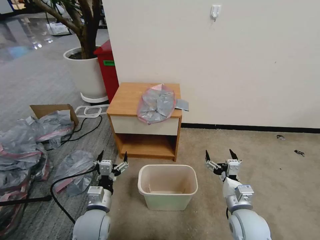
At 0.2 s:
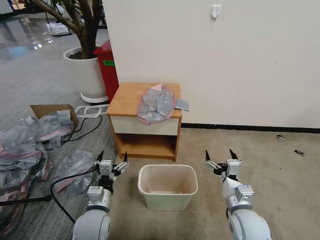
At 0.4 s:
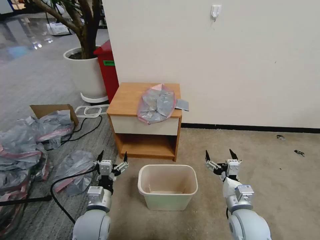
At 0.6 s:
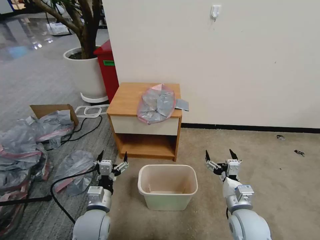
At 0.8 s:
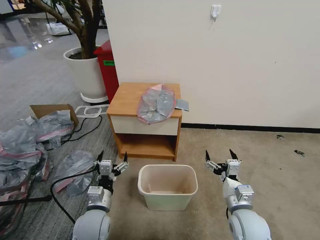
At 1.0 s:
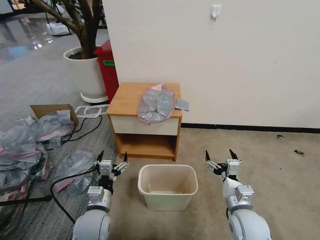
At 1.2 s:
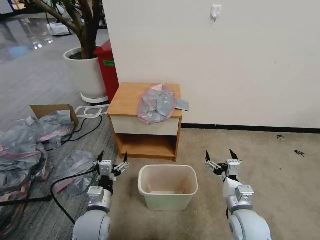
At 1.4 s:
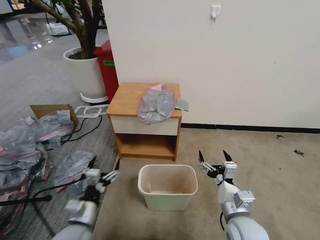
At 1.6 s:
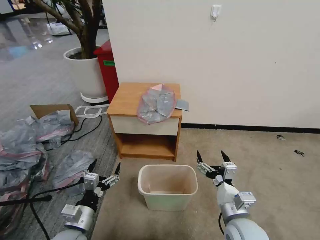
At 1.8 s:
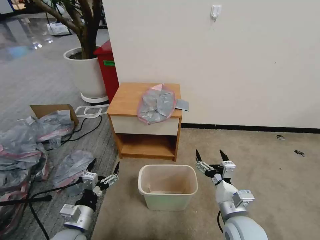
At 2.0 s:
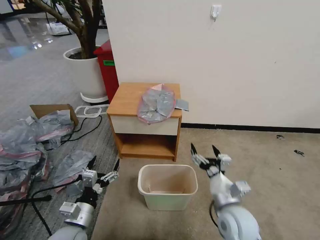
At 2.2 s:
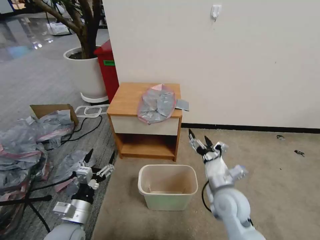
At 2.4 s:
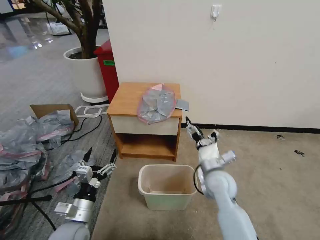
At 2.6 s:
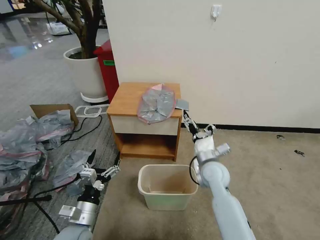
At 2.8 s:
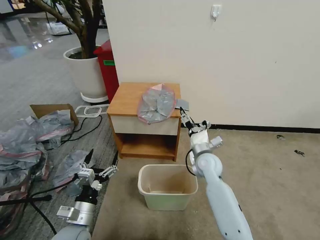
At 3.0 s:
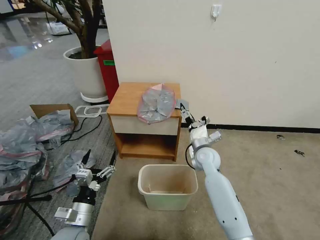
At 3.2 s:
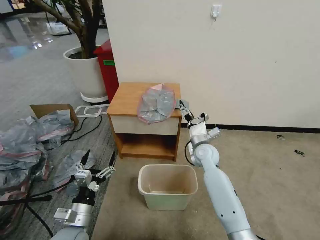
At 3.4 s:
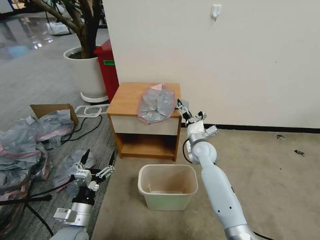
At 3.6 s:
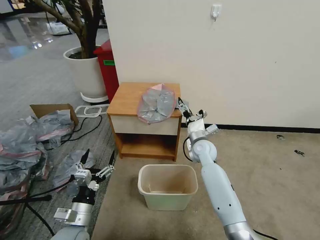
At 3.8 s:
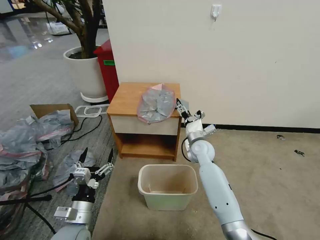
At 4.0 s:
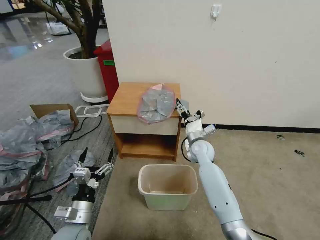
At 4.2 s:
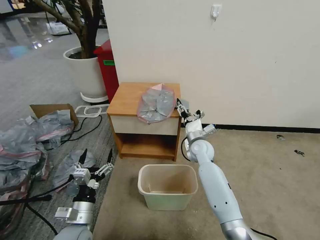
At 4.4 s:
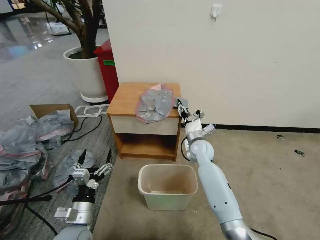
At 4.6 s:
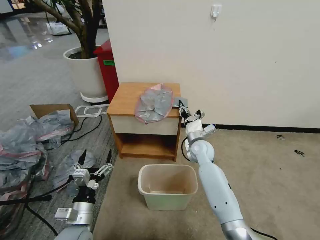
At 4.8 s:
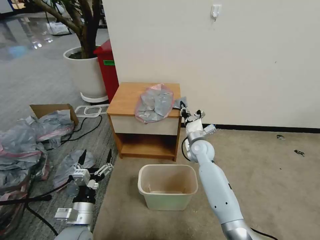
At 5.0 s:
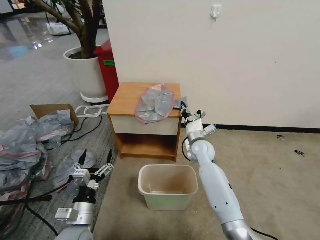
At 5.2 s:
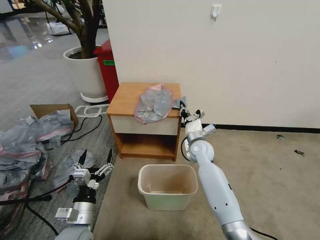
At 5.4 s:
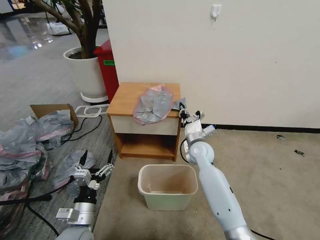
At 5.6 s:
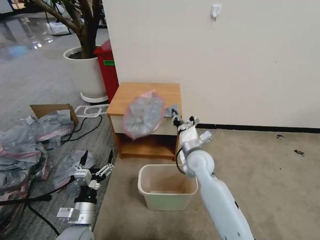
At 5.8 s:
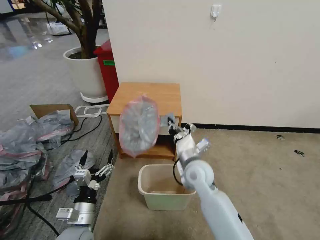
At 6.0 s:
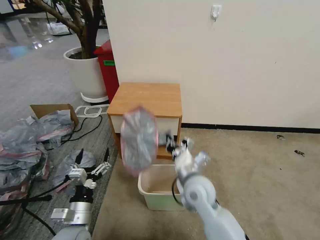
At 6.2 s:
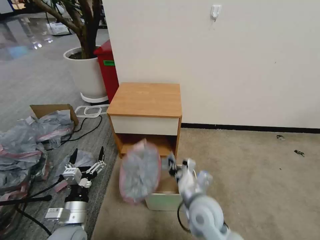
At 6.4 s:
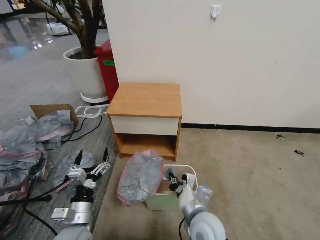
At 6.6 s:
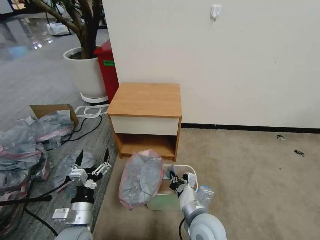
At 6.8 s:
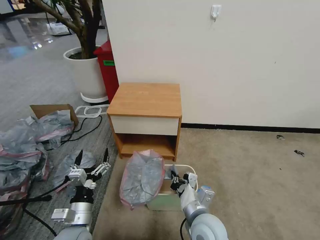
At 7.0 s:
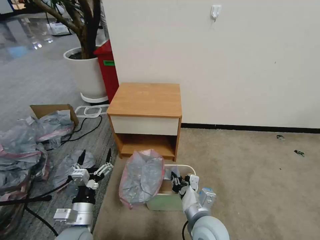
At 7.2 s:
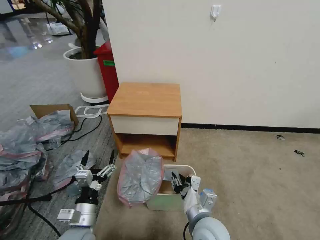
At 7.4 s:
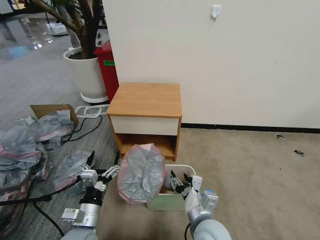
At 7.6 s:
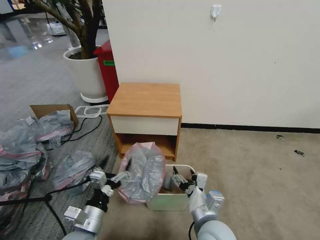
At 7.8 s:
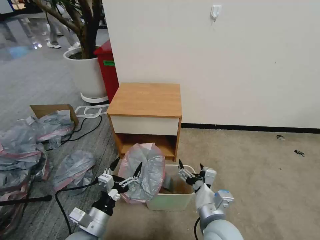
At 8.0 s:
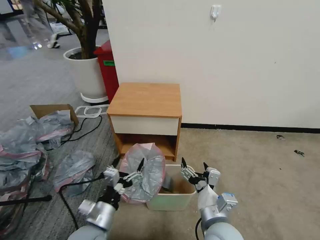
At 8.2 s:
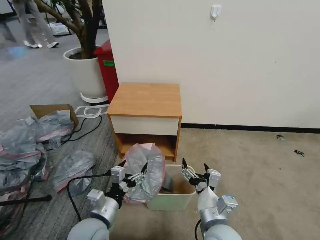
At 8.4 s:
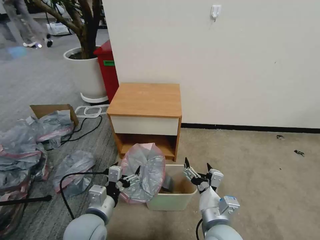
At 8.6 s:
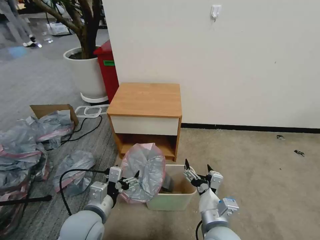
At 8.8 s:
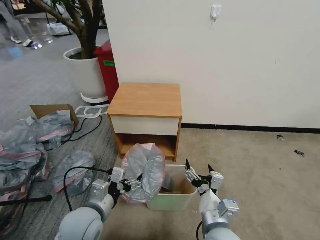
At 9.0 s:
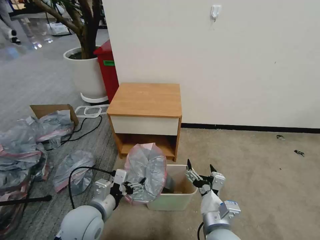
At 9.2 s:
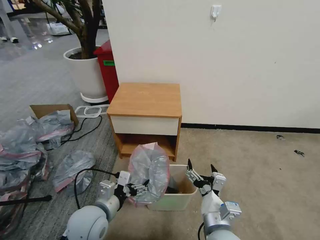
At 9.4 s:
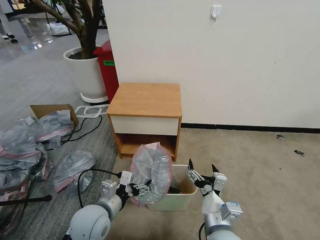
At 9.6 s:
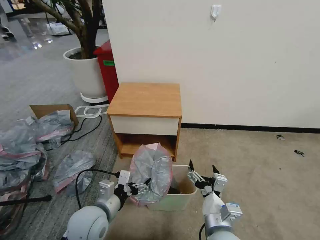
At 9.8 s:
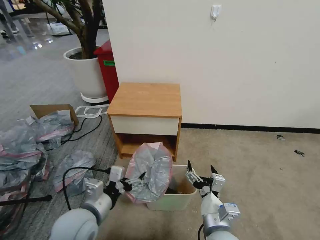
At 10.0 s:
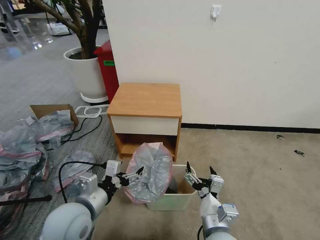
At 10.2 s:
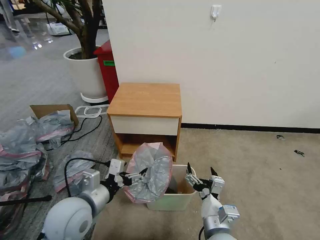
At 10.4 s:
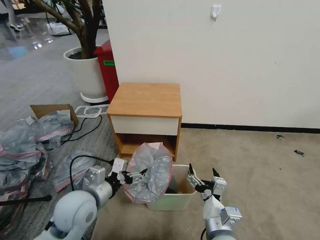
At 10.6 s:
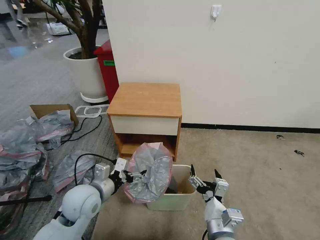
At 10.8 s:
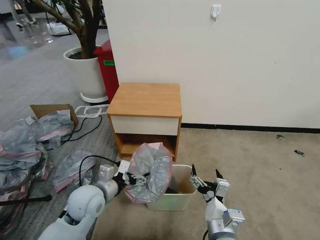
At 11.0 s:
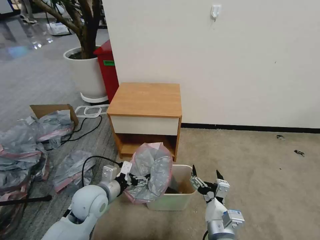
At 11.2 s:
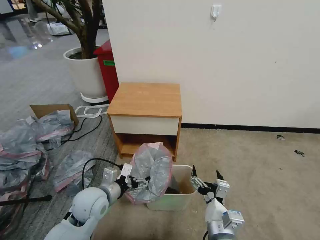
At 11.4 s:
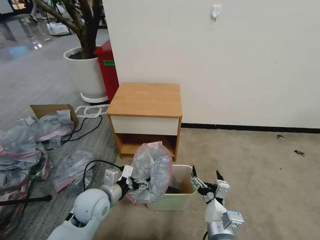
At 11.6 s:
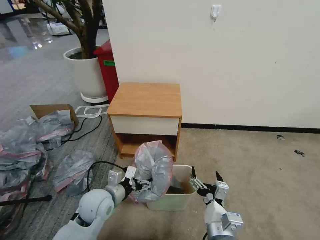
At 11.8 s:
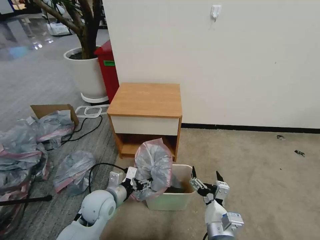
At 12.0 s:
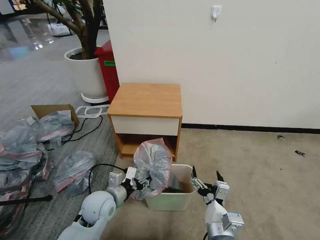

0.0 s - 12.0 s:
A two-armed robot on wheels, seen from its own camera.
Task of the whole recording: Pick up the garbage bag from the table and place it over the trash can.
1.6 s - 3.0 s: The right gripper moves forward, approximately 25 cm.
3.0 s - 4.4 s: The right gripper closes up.
4.4 s - 6.0 s: The right gripper travels backward by about 20 cm, and closes up.
6.0 s - 7.6 s: The right gripper goes approximately 10 cm backward, and opens up.
7.6 s - 9.0 s: The left gripper changes place by approximately 5 cm.
9.0 s - 10.4 s: The grippers stay close to where they were, moving slightly.
10.4 s - 12.0 s: The left gripper heads downward, covering approximately 10 cm, and closes its fingers.

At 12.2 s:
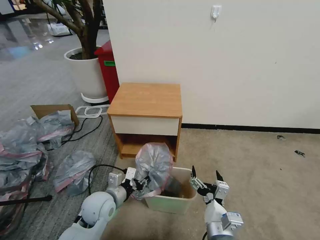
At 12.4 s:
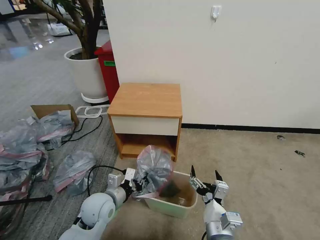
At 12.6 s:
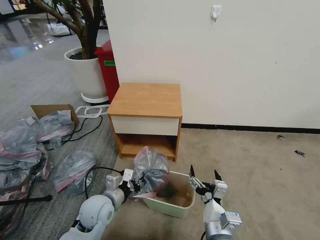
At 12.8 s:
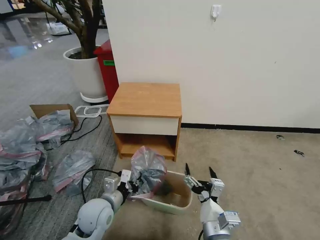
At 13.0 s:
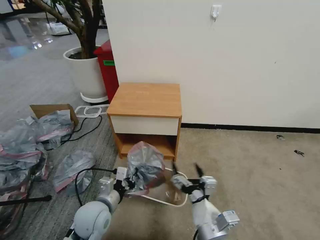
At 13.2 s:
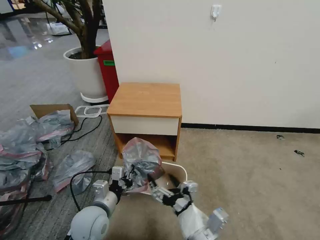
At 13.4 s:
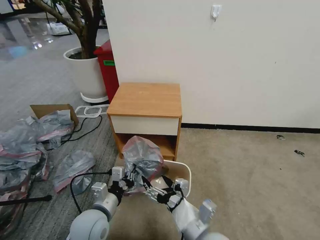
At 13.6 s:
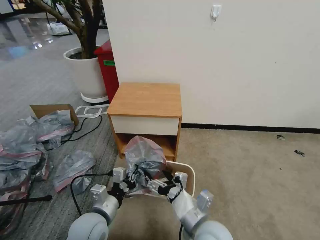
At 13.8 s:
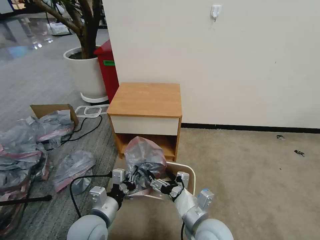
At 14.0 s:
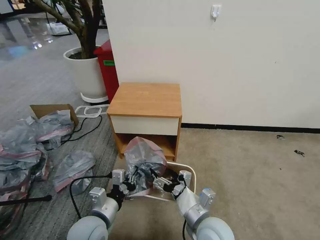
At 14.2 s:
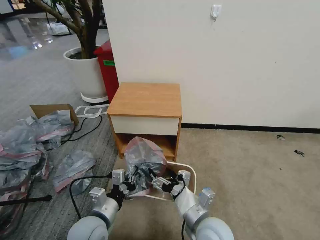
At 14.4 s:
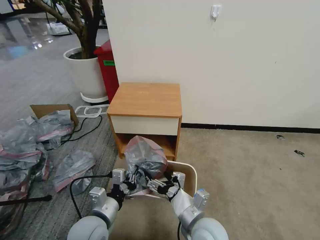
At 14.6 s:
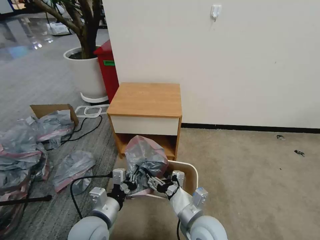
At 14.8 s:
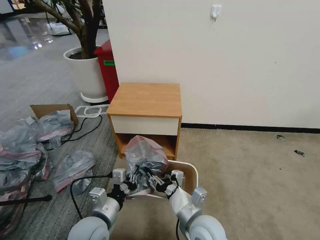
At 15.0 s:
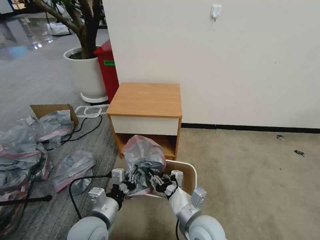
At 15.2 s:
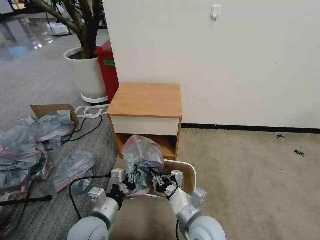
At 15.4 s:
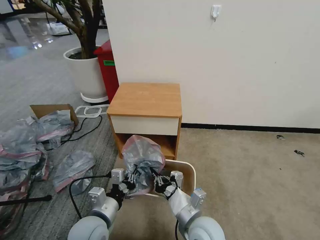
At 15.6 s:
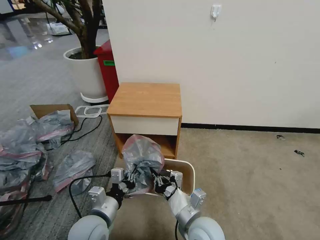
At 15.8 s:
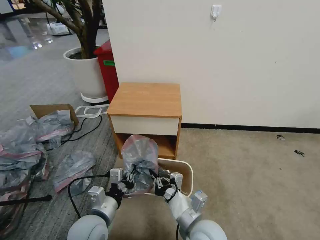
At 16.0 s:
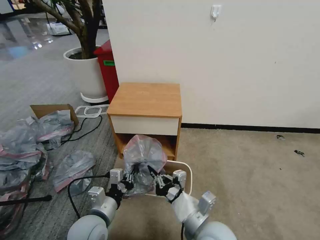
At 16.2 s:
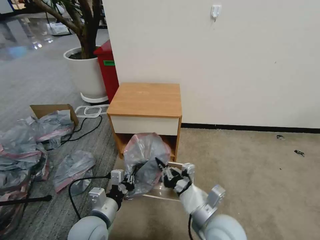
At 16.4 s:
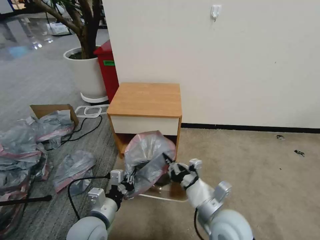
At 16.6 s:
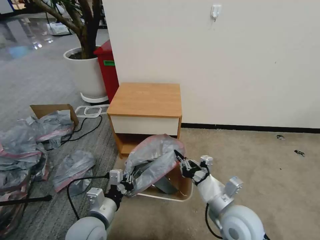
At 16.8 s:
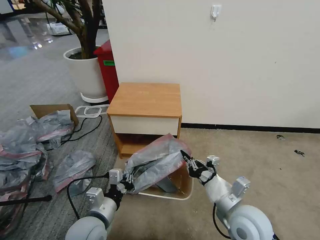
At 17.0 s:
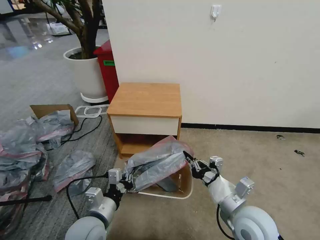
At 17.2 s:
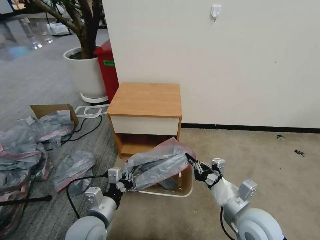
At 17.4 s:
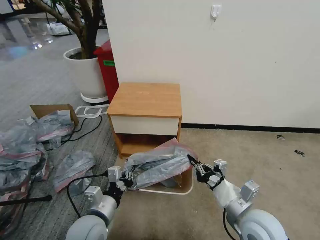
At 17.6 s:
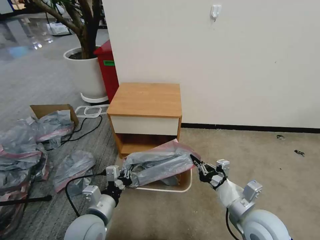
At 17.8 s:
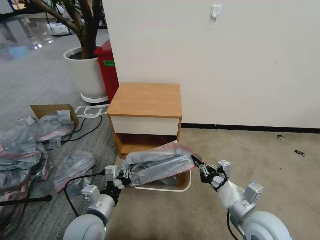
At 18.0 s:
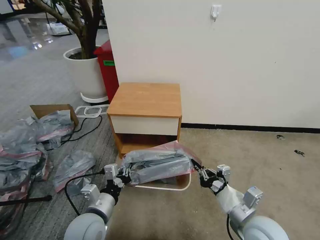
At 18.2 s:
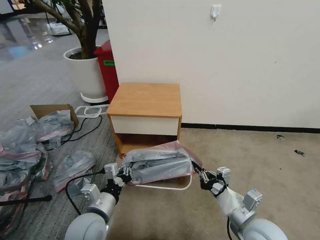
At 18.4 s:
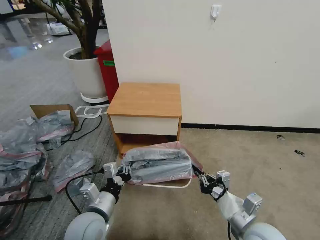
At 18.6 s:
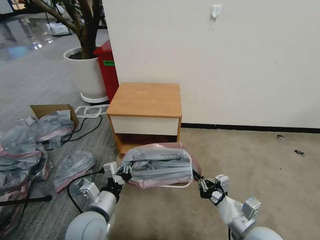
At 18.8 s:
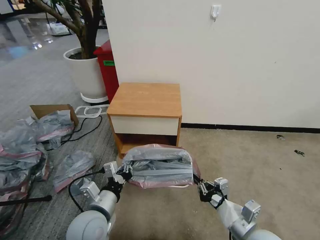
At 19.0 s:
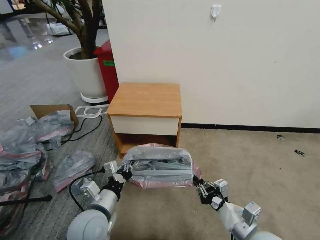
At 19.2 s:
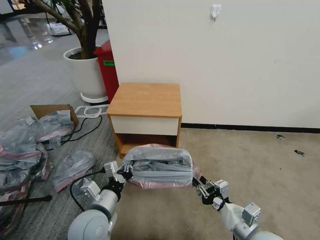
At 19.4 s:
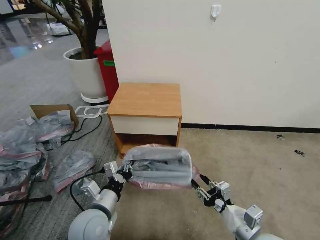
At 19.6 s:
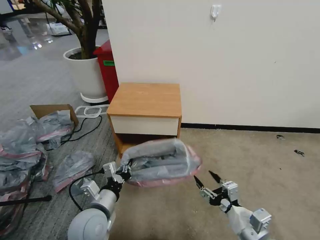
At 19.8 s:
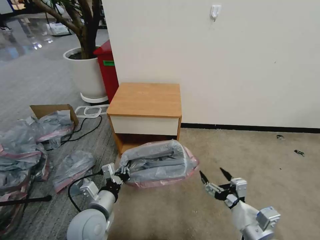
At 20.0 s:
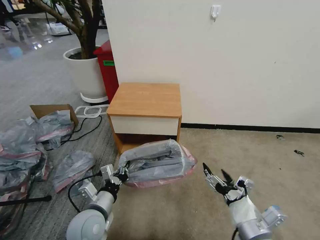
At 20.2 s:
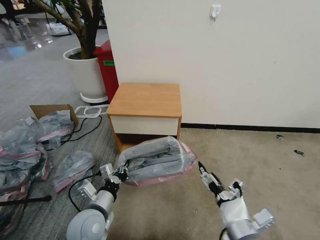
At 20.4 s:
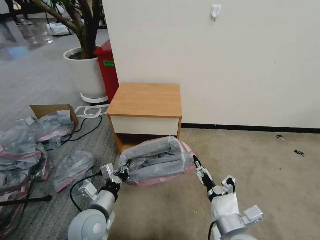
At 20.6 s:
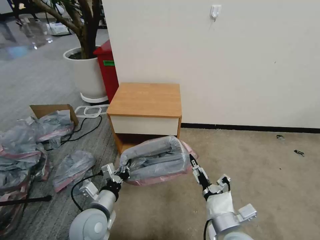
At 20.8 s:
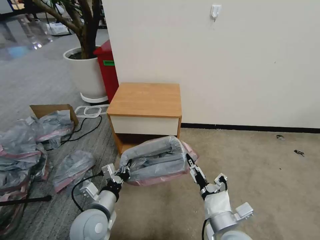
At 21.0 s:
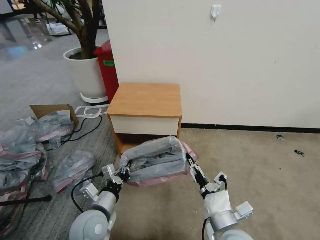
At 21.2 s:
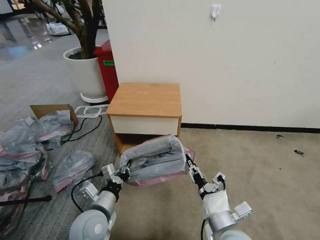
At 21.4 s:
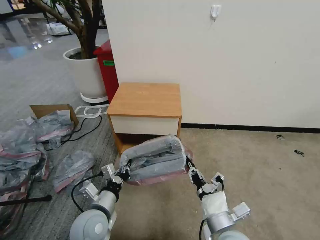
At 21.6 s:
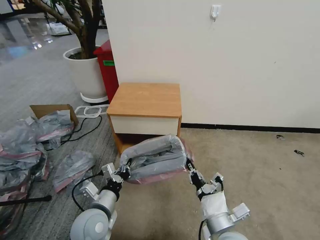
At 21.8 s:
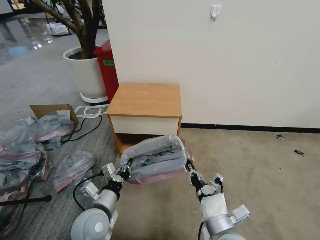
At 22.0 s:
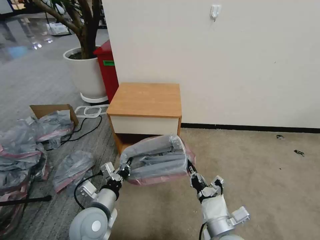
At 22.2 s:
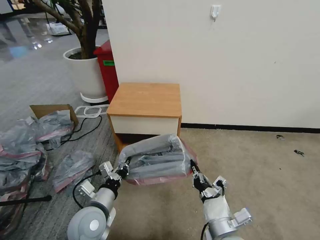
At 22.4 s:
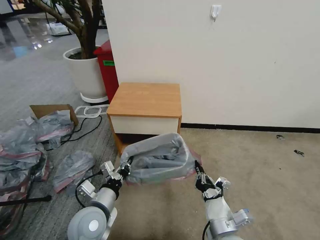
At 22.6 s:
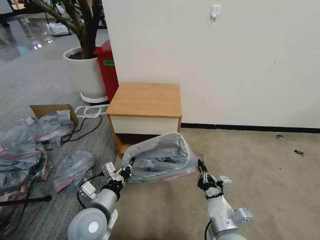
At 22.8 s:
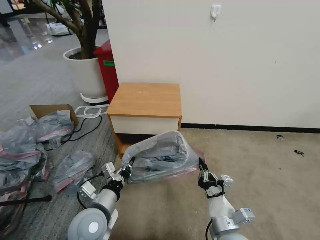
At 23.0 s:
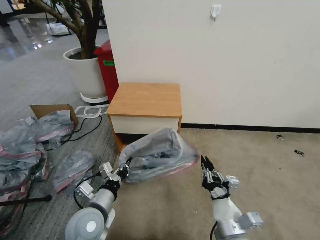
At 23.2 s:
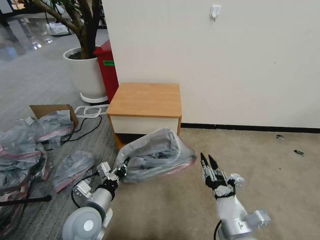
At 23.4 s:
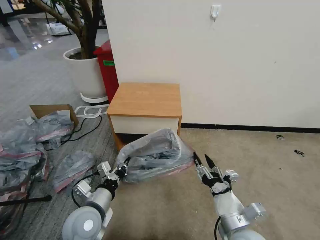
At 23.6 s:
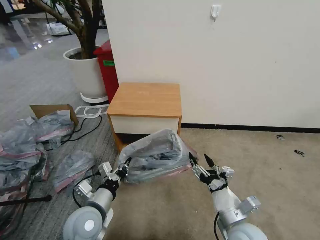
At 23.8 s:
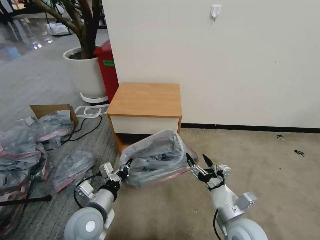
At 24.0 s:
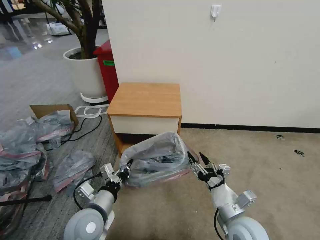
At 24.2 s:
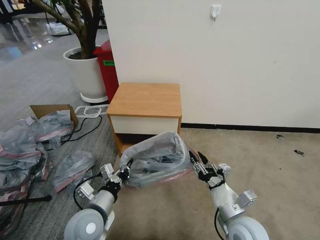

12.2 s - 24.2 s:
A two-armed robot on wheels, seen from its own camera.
Task of the whole recording: Pick up the garbage bag from the table and place it over the trash can.
12.2 s - 13.8 s: The right gripper ends up about 5 cm from where it was, while the left gripper moves backward, roughly 5 cm, and closes up.
13.8 s - 15.2 s: The right gripper closes its fingers.
15.2 s - 16.6 s: The right gripper is displaced to the right by roughly 5 cm.
16.6 s - 18.2 s: The right gripper goes some 5 cm to the right.
18.2 s - 19.8 s: The right gripper opens.
19.8 s - 21.2 s: The right gripper heads to the left, covering approximately 10 cm, and closes its fingers.
22.6 s - 24.2 s: The right gripper shifts by roughly 5 cm, and opens up.
